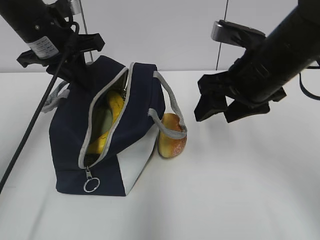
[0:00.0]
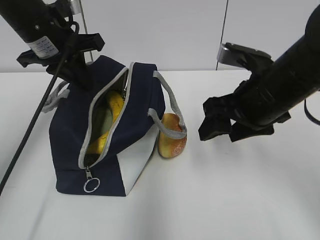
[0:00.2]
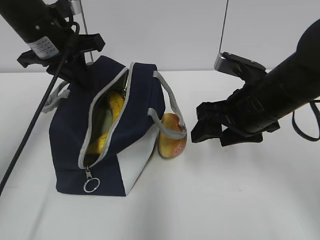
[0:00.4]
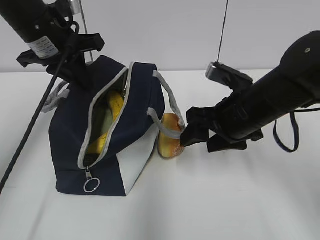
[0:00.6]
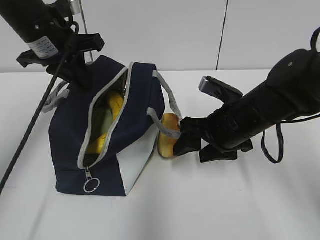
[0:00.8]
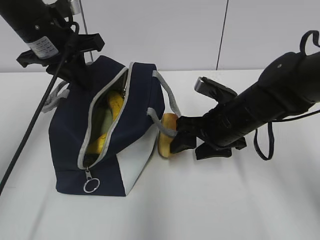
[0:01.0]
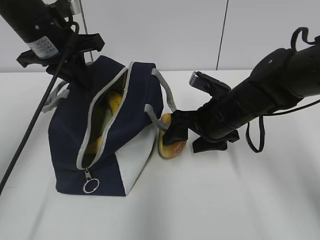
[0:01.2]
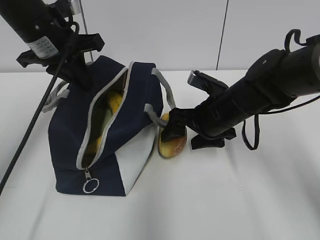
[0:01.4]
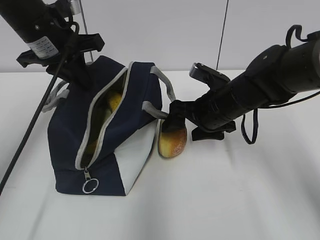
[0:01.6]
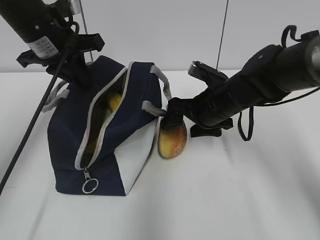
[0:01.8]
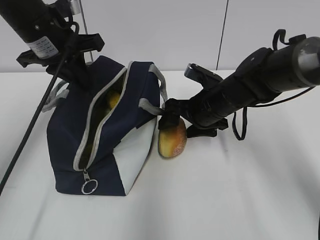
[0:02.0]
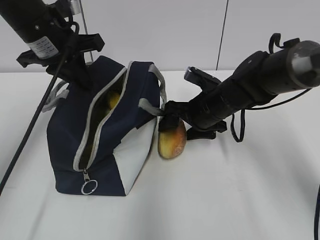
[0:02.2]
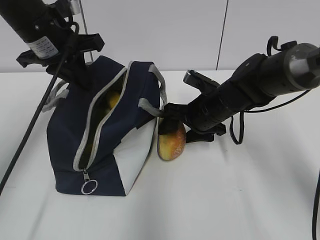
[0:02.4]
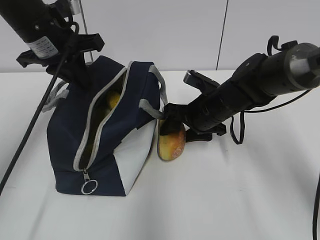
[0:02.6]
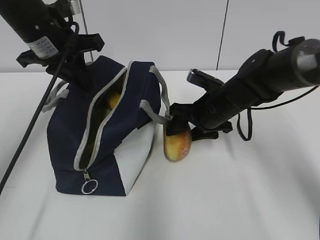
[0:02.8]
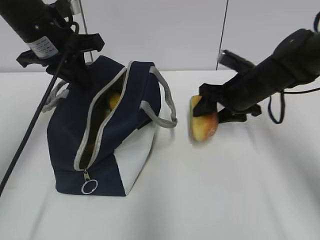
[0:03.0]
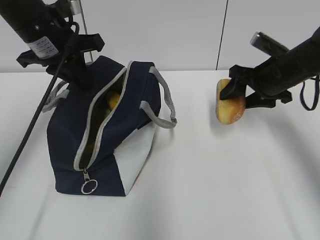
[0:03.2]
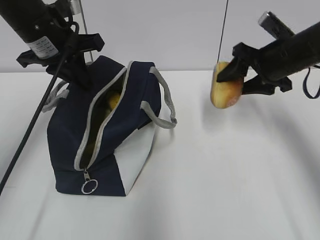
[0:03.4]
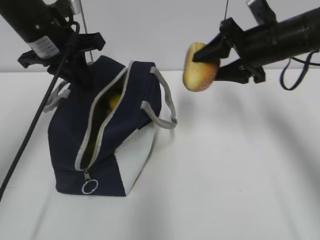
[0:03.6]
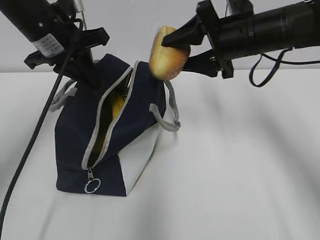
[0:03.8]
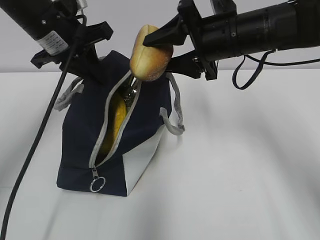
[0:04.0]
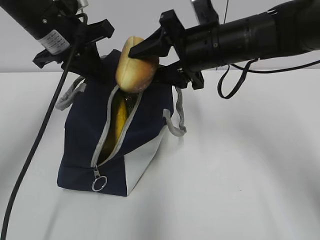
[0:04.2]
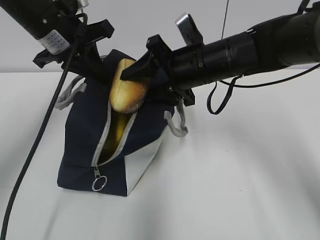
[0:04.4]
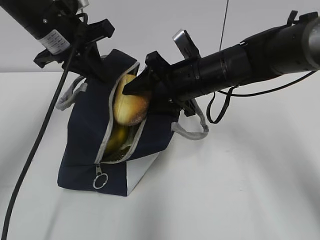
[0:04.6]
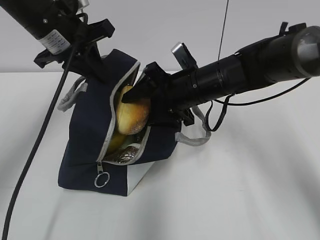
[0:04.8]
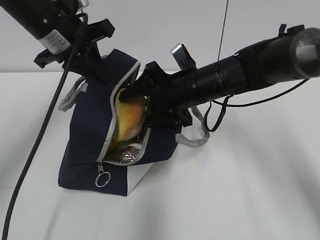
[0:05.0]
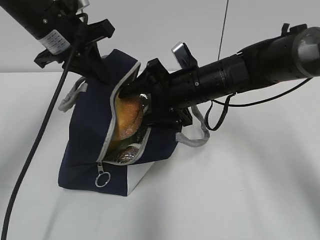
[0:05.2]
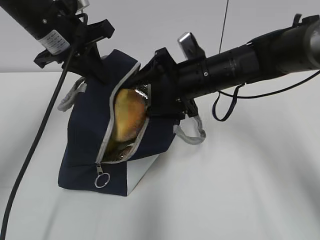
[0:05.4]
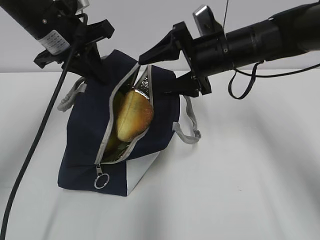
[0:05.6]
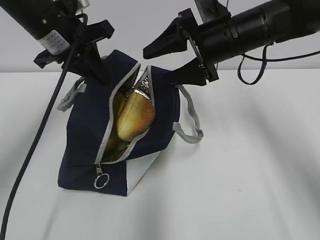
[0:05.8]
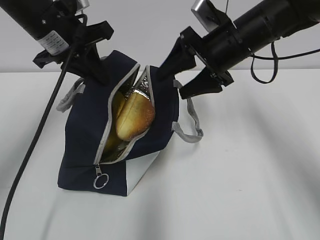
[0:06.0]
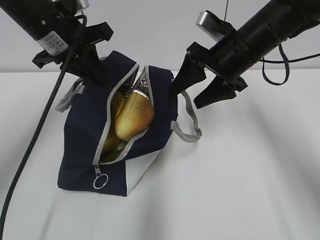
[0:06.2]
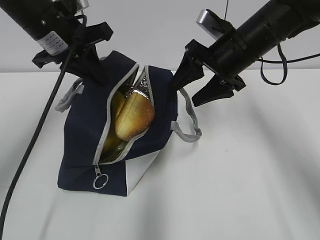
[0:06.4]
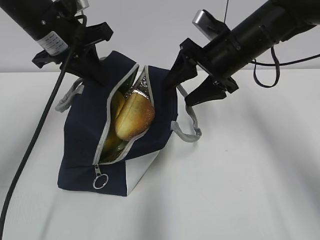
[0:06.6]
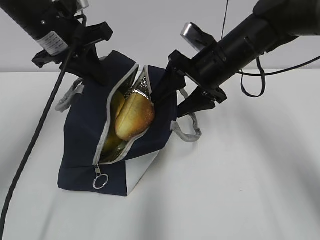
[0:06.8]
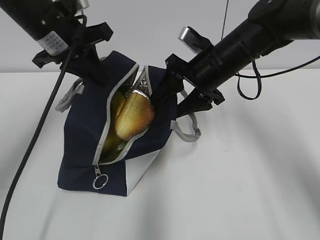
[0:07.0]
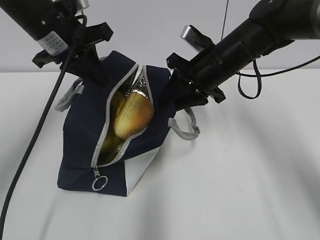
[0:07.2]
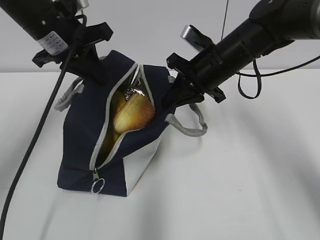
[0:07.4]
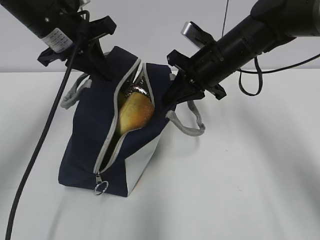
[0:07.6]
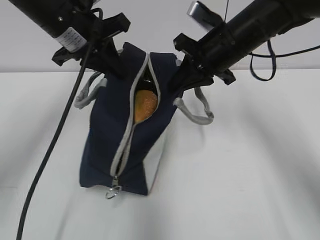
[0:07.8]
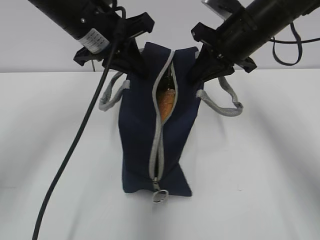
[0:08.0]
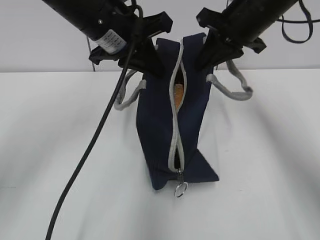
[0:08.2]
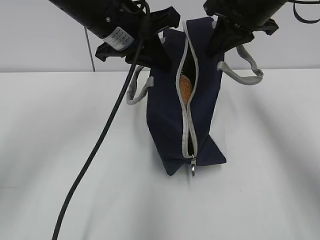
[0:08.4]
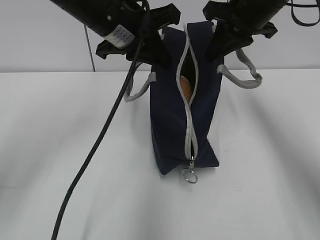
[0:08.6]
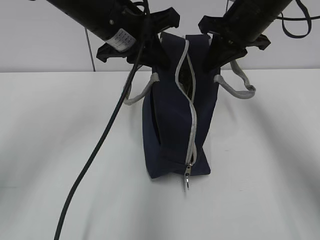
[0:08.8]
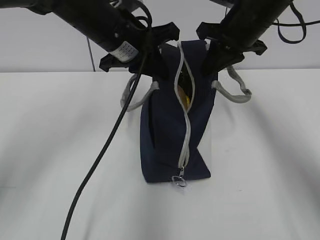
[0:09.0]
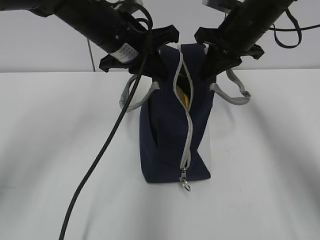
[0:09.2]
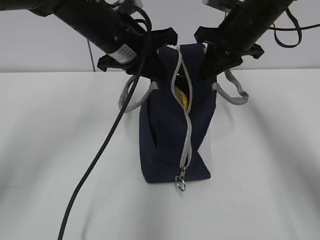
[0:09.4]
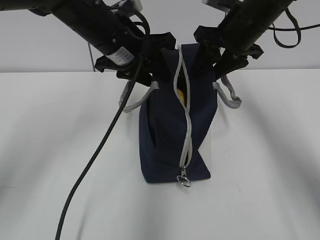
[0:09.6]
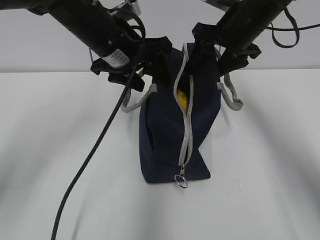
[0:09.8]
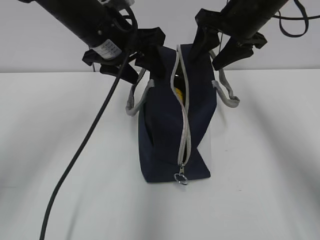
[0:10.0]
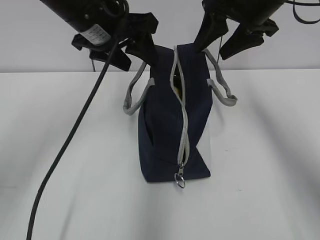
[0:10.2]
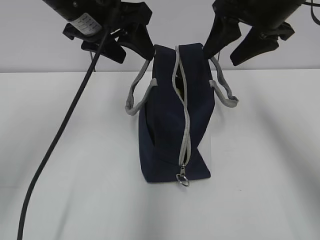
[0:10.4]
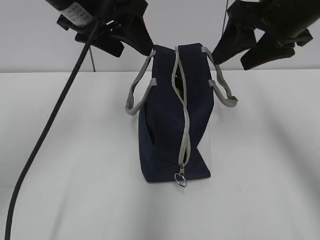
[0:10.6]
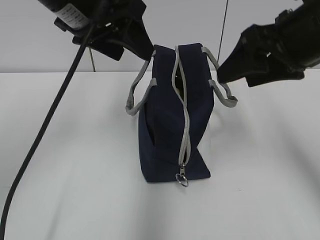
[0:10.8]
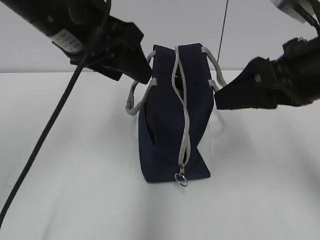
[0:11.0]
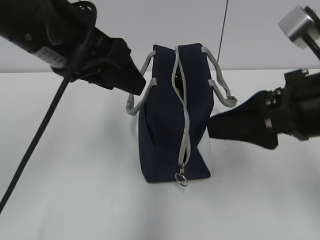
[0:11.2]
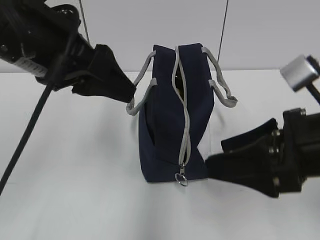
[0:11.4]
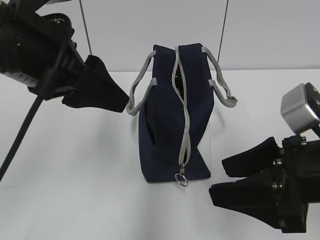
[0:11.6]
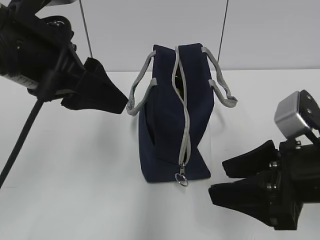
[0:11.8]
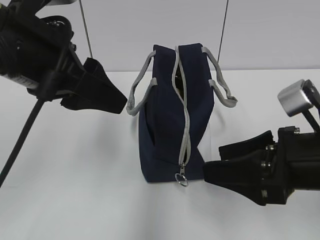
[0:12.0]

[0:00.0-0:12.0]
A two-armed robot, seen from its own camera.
0:00.0 to 0:01.6: The right gripper travels downward and forward by some 10 cm.
0:01.6 to 0:03.0: The right gripper ends up roughly 5 cm from where it was.
0:03.0 to 0:04.4: The right gripper travels to the left and upward by approximately 10 cm.
0:04.4 to 0:06.0: The right gripper shifts some 5 cm to the right.
0:06.0 to 0:07.6: The right gripper closes up.
0:07.6 to 0:09.0: The right gripper goes roughly 5 cm upward. Meanwhile the left gripper goes approximately 10 cm to the right.
0:09.0 to 0:10.4: The left gripper moves upward, approximately 5 cm, and opens its fingers; the right gripper changes place by about 5 cm, and opens its fingers.
0:10.4 to 0:12.0: The right gripper heads backward and downward, covering some 20 cm; the left gripper moves backward, about 10 cm.

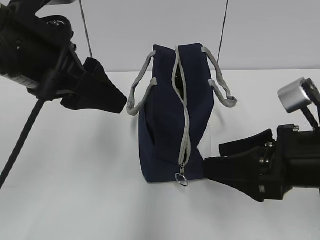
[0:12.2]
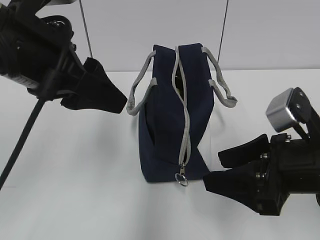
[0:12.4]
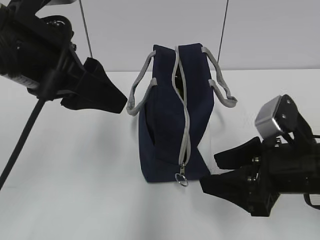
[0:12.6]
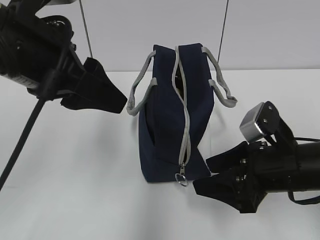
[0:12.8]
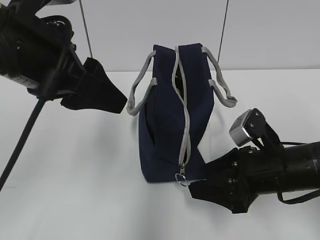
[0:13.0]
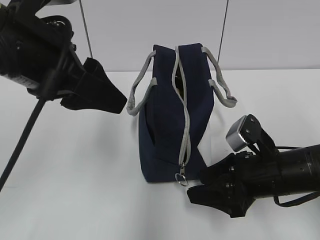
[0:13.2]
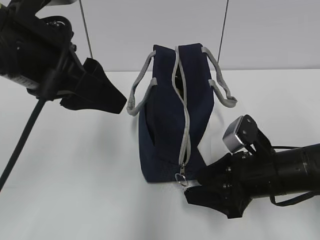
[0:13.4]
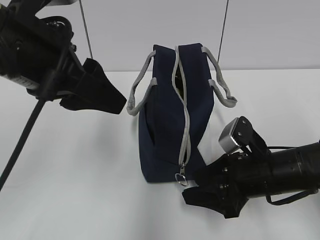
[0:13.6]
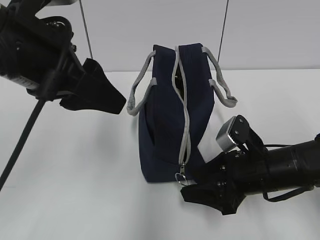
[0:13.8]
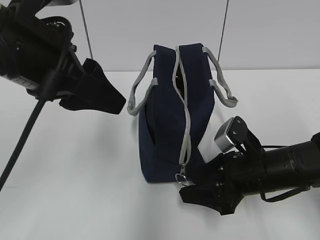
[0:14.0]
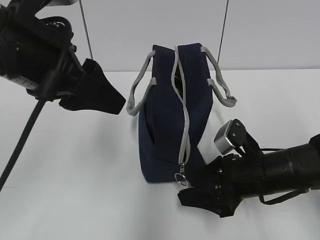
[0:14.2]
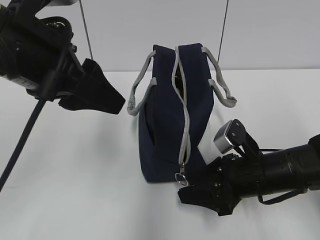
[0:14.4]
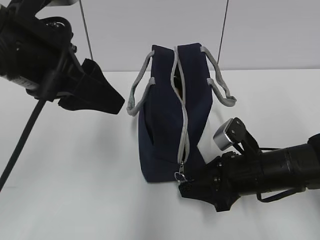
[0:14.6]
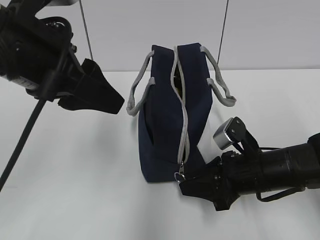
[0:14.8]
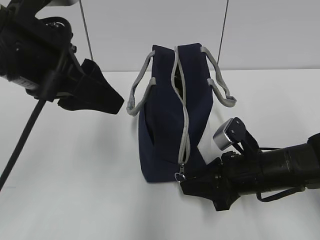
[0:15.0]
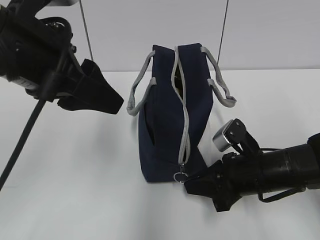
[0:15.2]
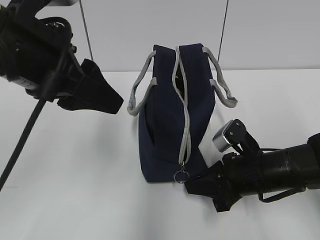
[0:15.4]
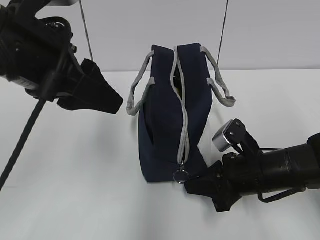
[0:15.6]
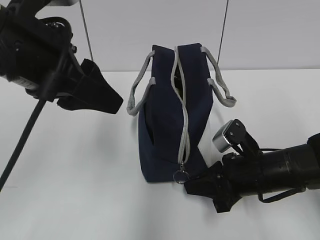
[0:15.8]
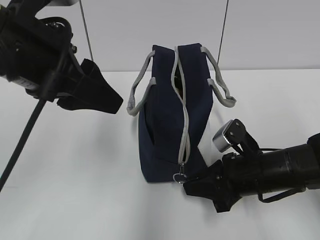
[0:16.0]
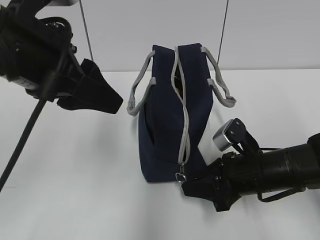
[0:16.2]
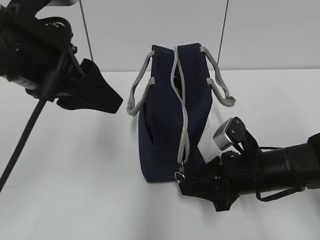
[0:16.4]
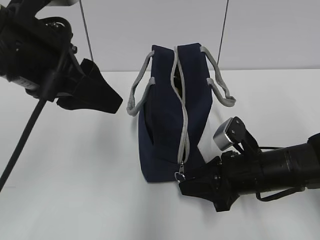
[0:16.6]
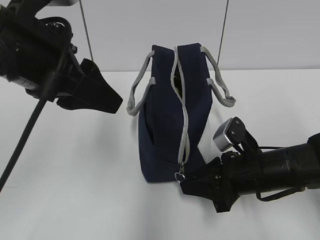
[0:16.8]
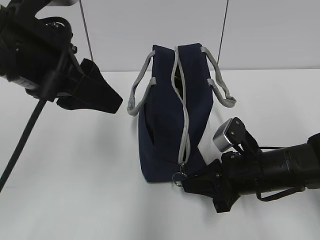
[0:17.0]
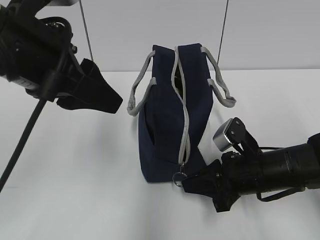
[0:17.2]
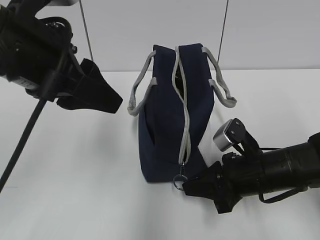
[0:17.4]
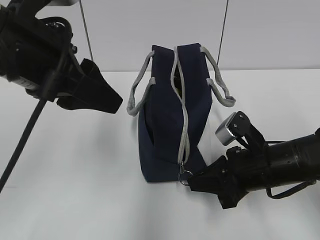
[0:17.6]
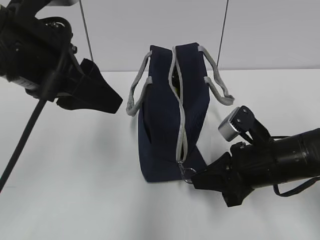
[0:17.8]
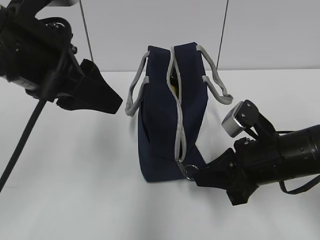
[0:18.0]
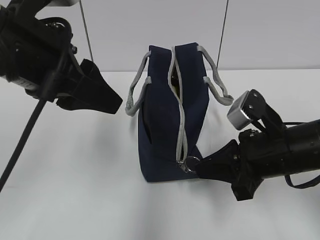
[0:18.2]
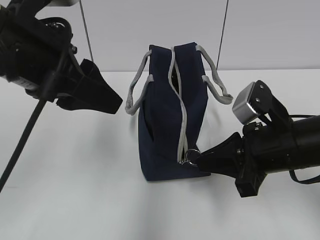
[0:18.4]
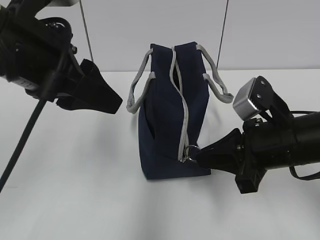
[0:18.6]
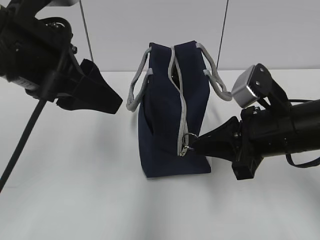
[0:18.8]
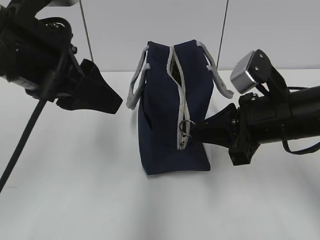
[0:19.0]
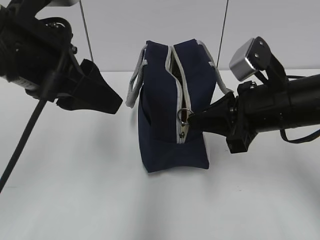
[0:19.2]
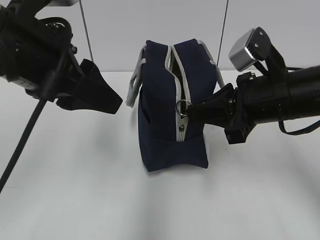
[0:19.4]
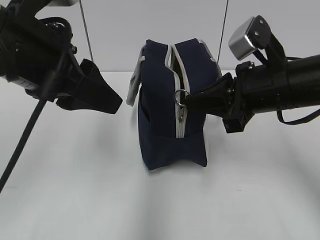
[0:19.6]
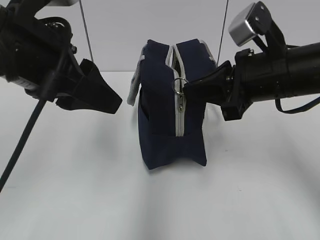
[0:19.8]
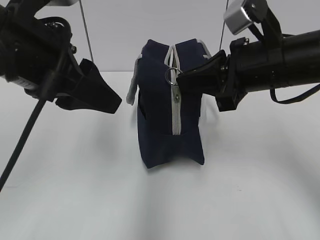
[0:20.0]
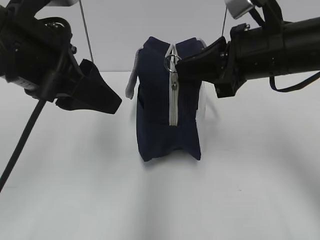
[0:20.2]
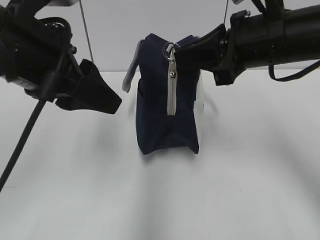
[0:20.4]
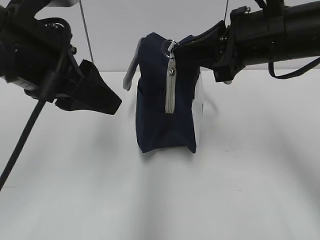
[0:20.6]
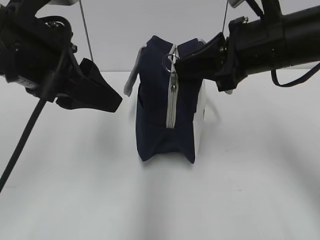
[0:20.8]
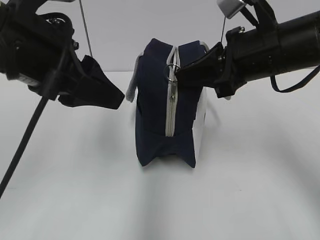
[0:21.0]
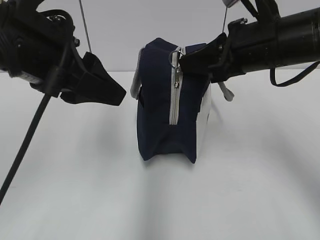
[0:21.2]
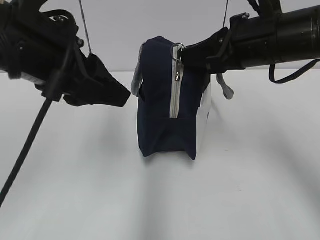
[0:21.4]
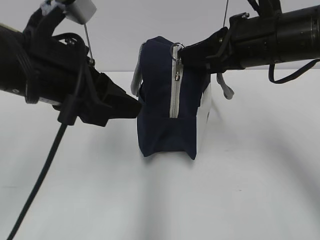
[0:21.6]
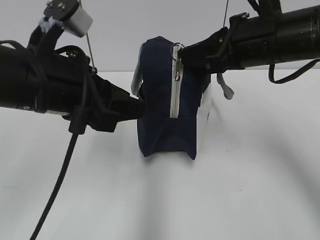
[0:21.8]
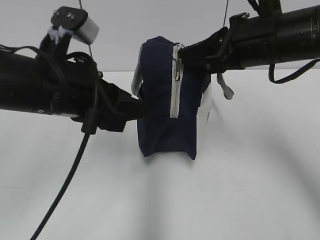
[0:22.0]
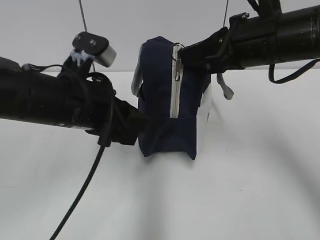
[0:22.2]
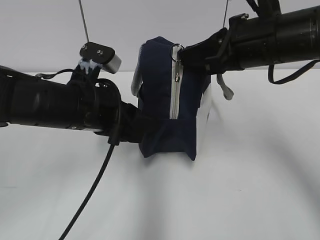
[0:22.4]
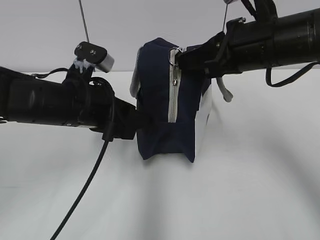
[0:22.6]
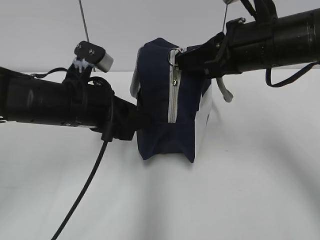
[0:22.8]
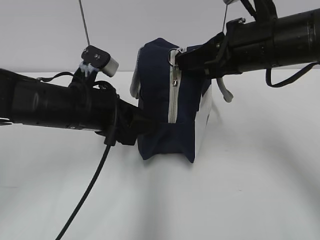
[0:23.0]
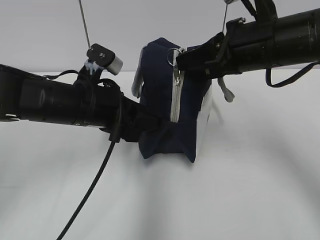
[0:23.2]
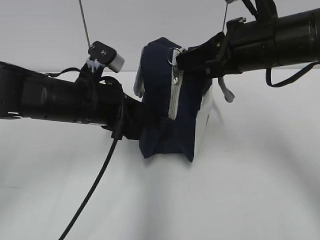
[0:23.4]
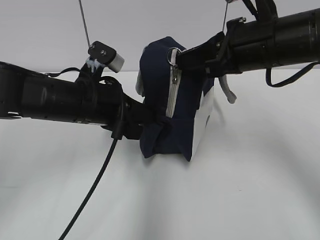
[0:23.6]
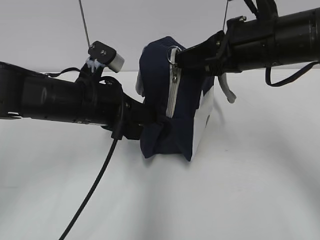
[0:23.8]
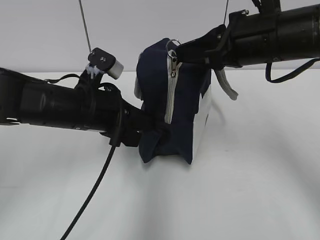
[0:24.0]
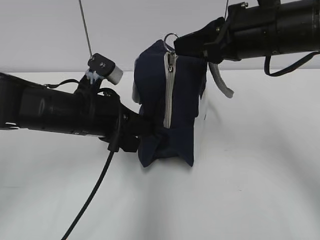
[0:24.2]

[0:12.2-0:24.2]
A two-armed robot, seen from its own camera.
0:12.2 to 0:13.8: The right gripper goes roughly 10 cm downward and forward.
0:13.8 to 0:15.2: The right gripper closes.
0:15.2 to 0:16.6: Both grippers stay put.
0:16.6 to 0:18.2: The right gripper heads upward, covering approximately 5 cm.
0:18.2 to 0:19.8: The right gripper travels upward by about 10 cm.
0:21.2 to 0:22.6: The left gripper moves downward and forward, approximately 15 cm.
0:22.6 to 0:24.2: The left gripper closes up.
